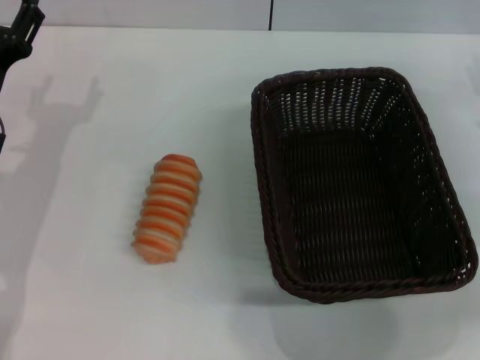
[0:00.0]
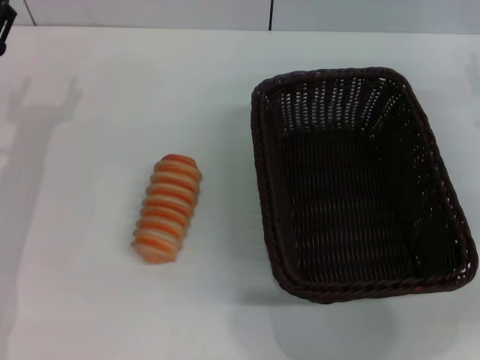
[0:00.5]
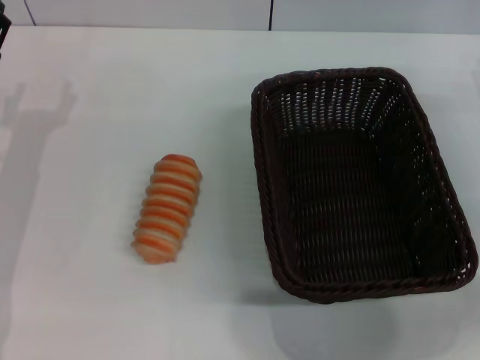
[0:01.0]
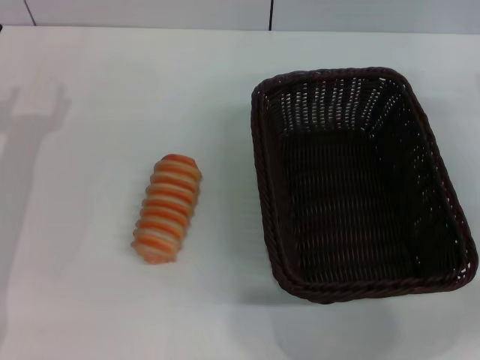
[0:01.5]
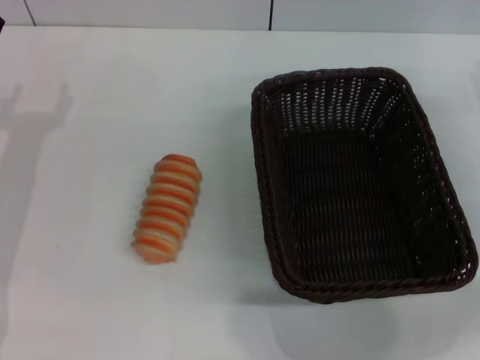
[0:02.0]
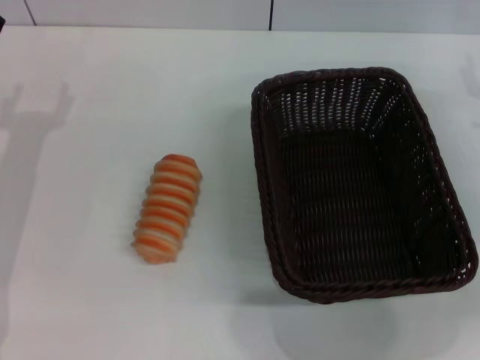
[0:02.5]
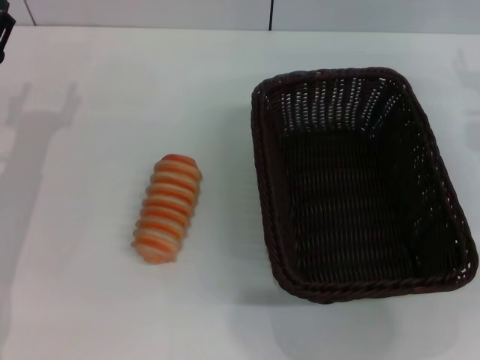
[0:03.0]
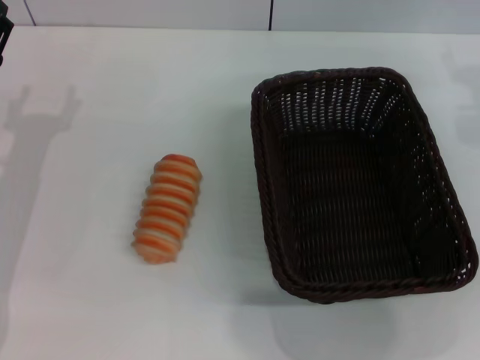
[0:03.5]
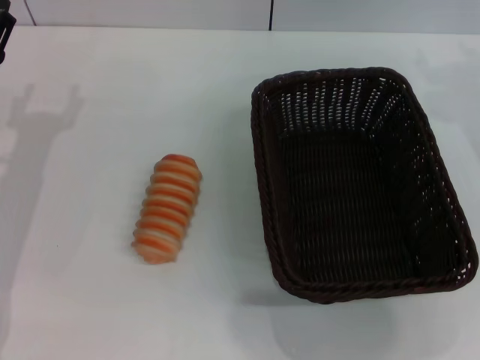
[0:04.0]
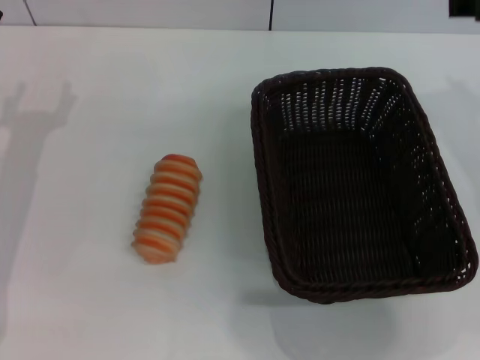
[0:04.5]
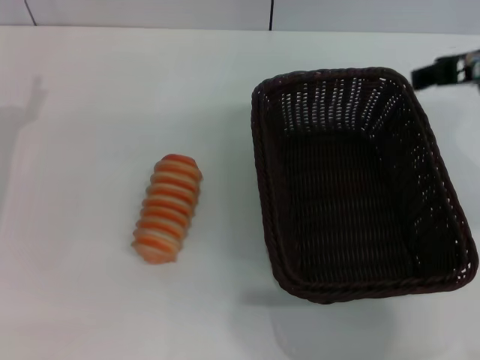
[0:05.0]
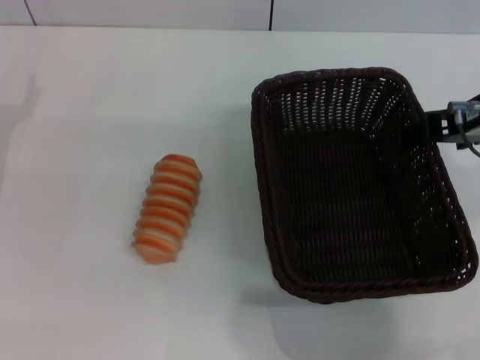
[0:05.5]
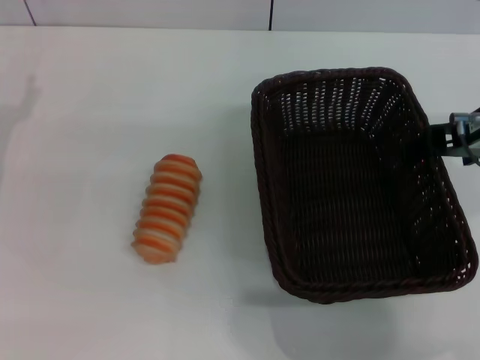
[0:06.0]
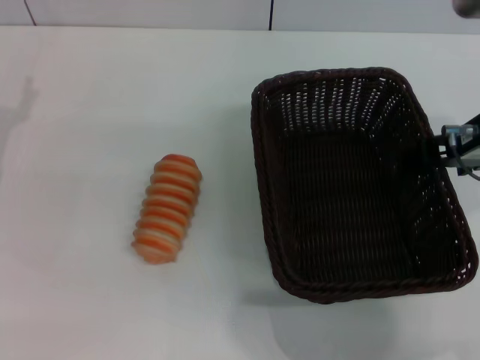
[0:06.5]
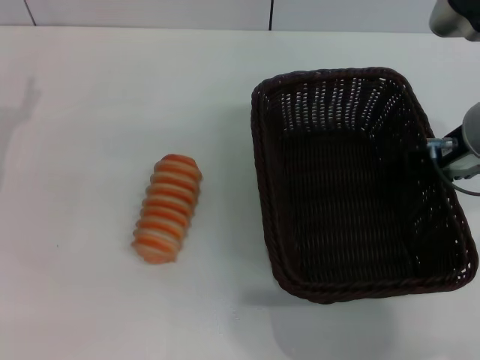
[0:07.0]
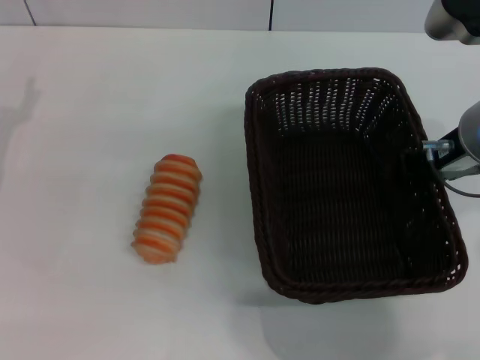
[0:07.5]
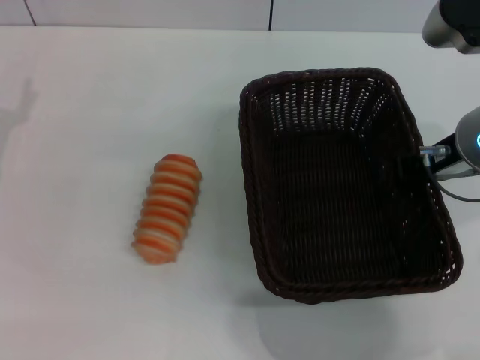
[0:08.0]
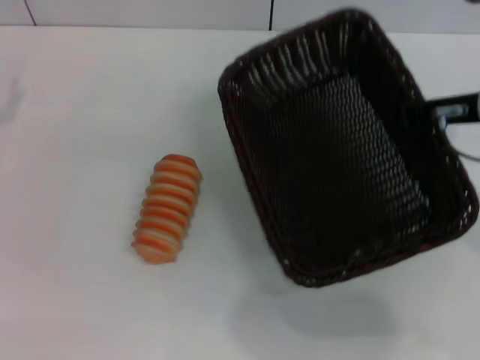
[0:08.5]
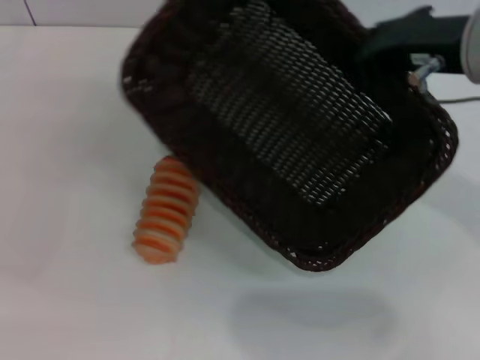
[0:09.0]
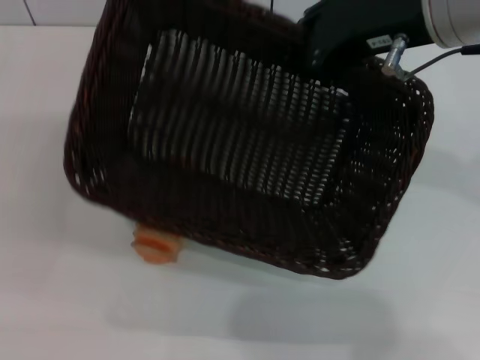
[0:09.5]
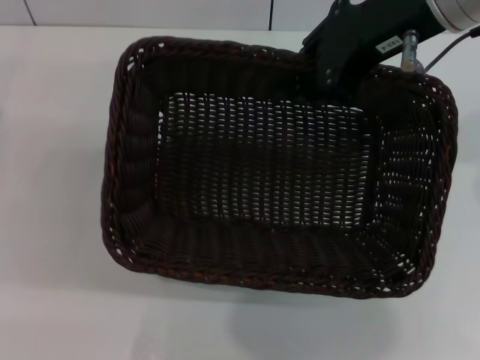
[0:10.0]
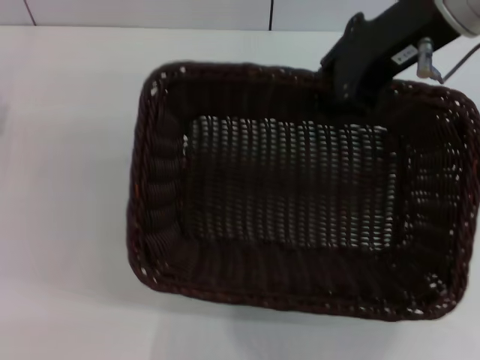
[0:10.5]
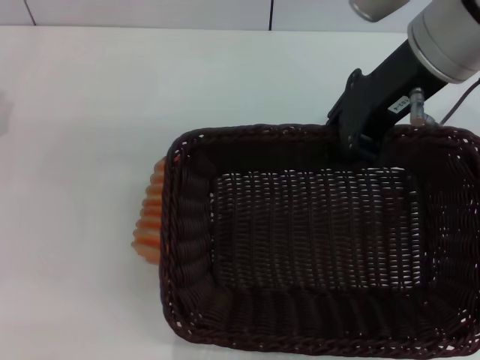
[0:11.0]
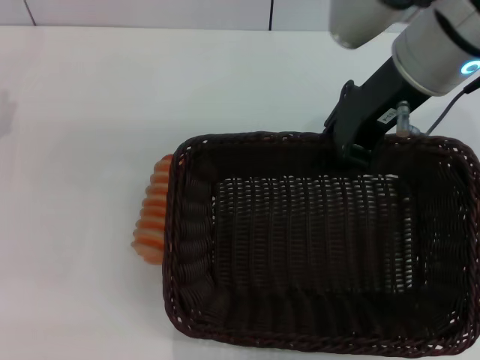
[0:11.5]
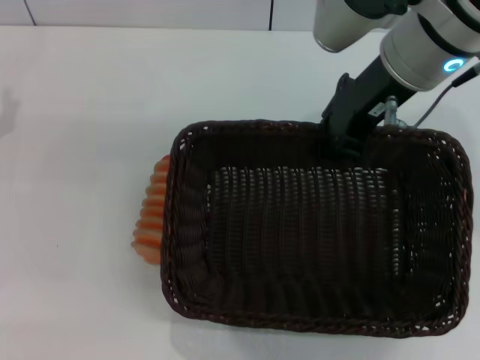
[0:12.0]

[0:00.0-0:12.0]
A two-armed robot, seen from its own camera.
Step, 0:00.0 to 0:08.5: Pick up the dark basket with the right gripper.
0:00.0 to 0:02.0: The grippers stay close to where they were, moving slightly.
0:02.0 to 0:04.0: The right gripper travels upward and to the left by roughly 15 cm.
0:04.0 to 0:06.0: The right gripper heads backward and to the left, covering some 10 cm.
0:06.0 to 0:08.0: The right gripper closes up.
0:08.0 to 0:10.0: The right gripper moves upward, approximately 10 cm.
0:10.0 to 0:12.0: The right gripper heads downward, covering roughly 5 cm.

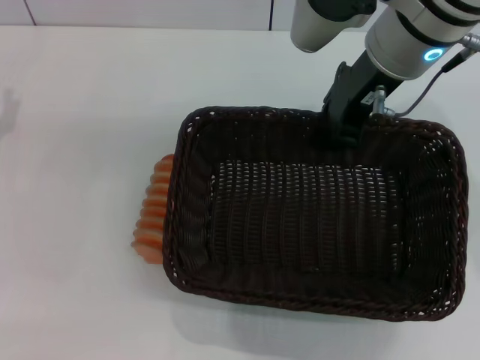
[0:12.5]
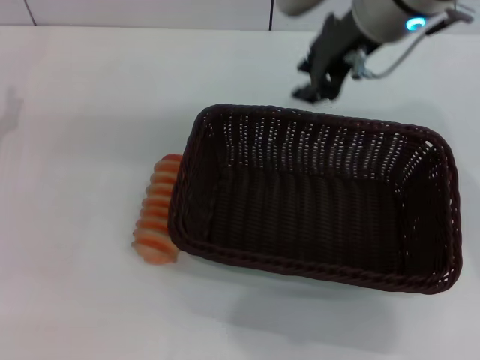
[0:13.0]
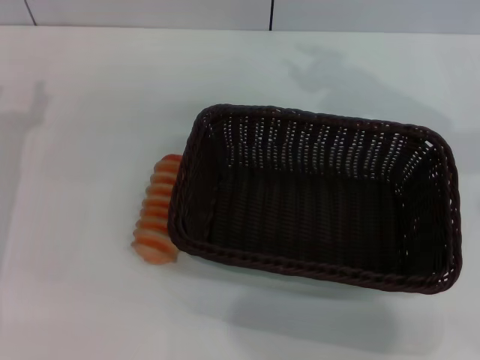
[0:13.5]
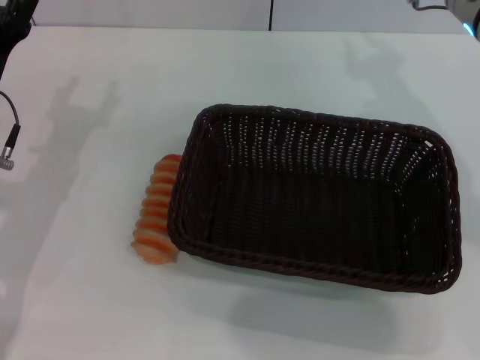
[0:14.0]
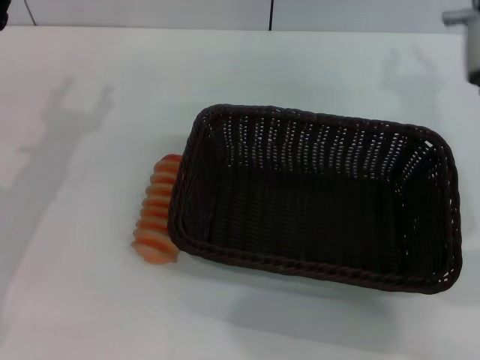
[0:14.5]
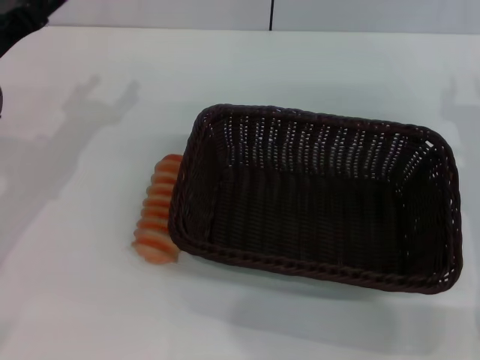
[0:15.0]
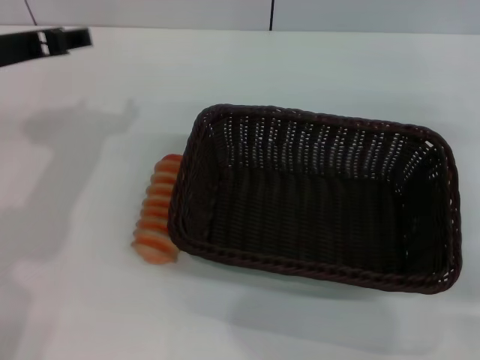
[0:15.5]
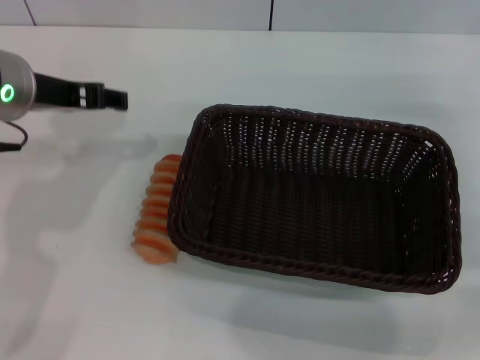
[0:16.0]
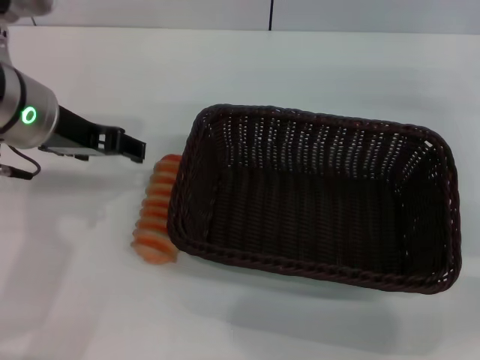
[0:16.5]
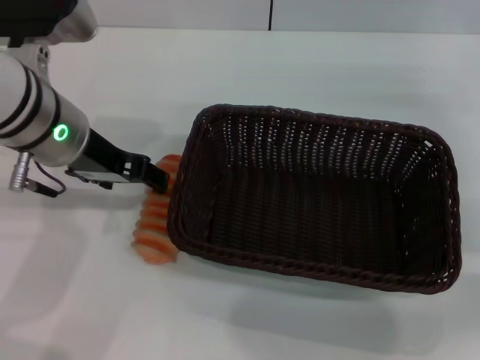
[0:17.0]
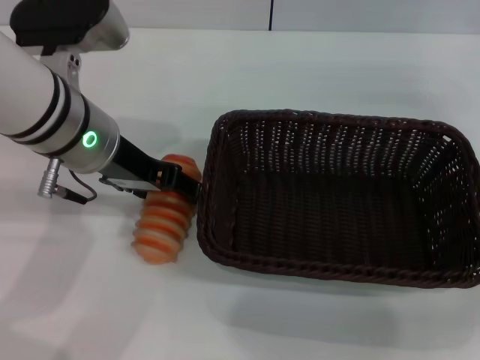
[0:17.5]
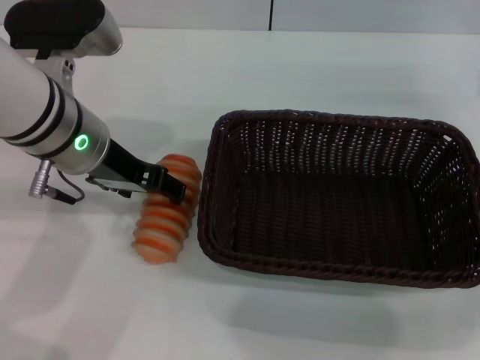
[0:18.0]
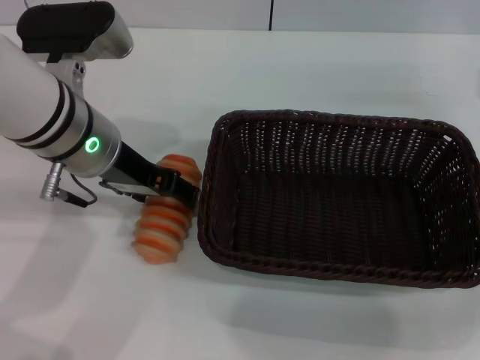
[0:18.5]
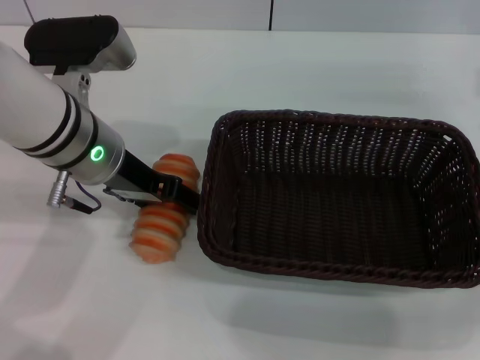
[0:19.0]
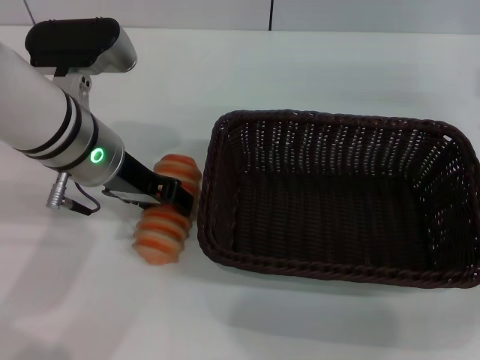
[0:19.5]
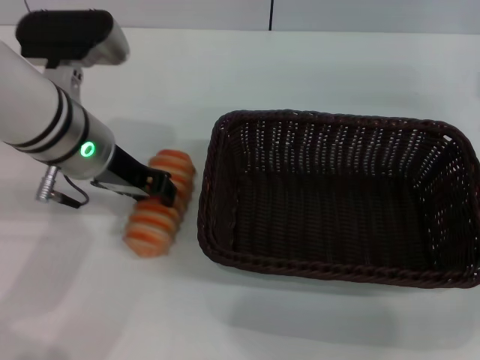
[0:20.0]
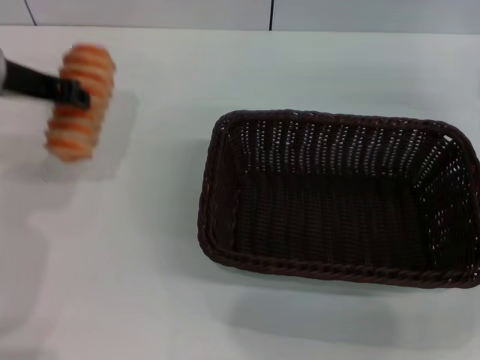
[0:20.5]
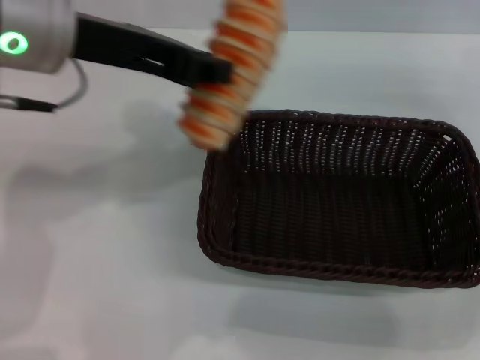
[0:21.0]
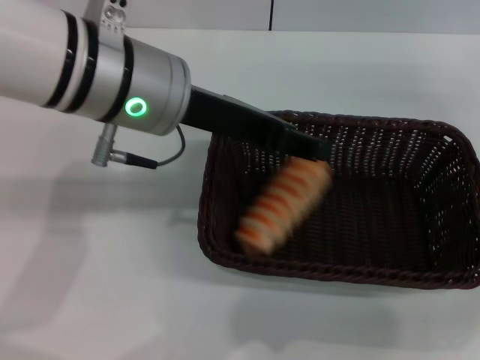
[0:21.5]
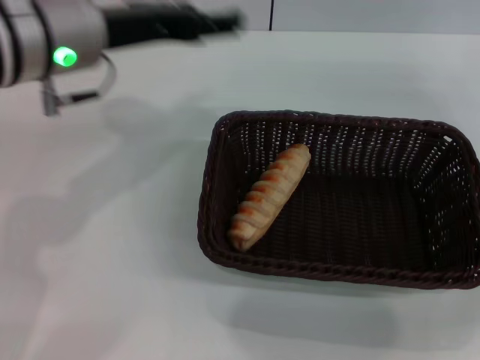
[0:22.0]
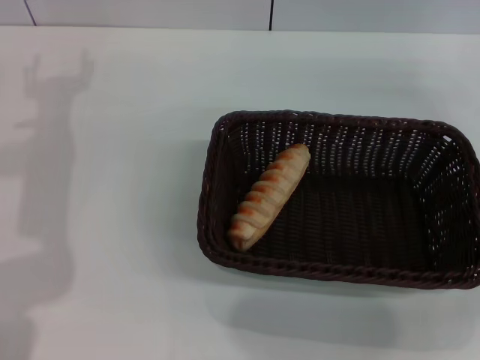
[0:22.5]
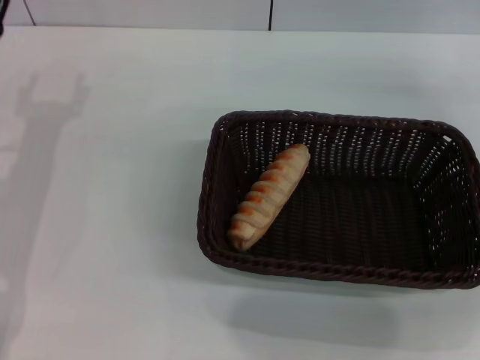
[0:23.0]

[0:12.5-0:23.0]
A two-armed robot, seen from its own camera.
Step, 0:13.5 to 0:20.0: Pick up the long bread with the left gripper.
Step, 0:20.5 to 0:22.0: Place the long bread into the dark basket with the left gripper.
0:12.5 to 0:14.5: The right gripper is displaced downward and to the right by some 15 cm; the left gripper is displaced to the right by roughly 5 cm.
0:14.5 to 0:16.5: The left gripper goes about 10 cm upward and to the right; the right gripper heads to the right, covering approximately 10 cm.
0:16.5 to 0:19.0: The left gripper ends up roughly 5 cm from where it was.
0:19.0 to 0:21.0: The left gripper heads upward, covering about 10 cm, and closes up.
0:21.0 to 0:23.0: The left gripper moves downward and to the left, approximately 20 cm, and opens up.
